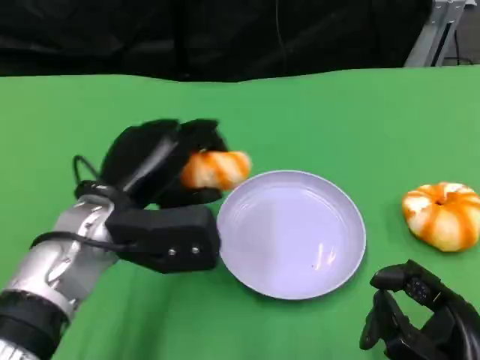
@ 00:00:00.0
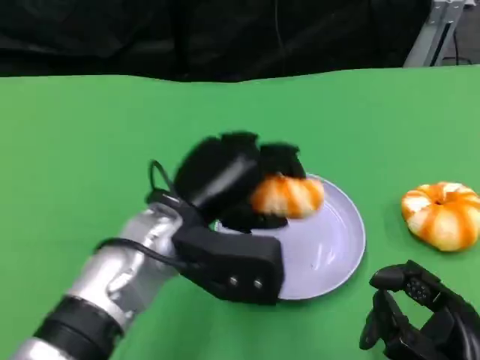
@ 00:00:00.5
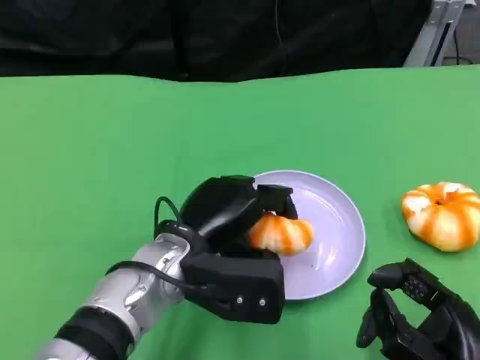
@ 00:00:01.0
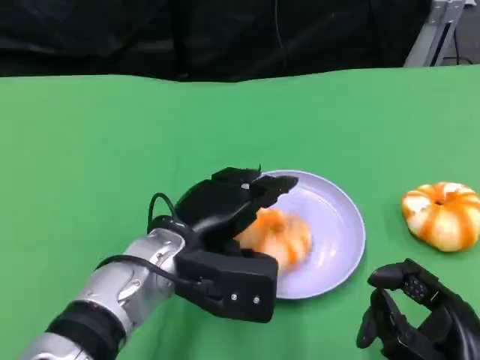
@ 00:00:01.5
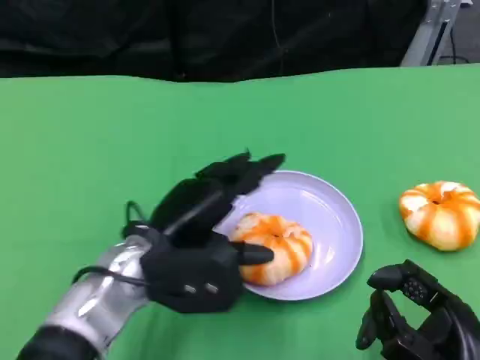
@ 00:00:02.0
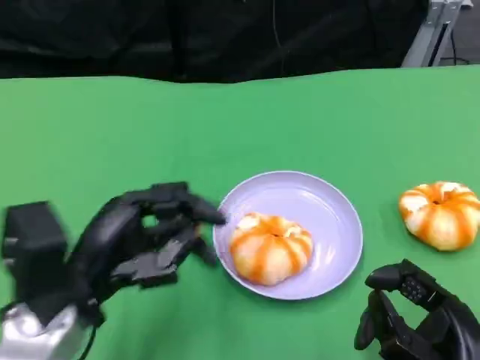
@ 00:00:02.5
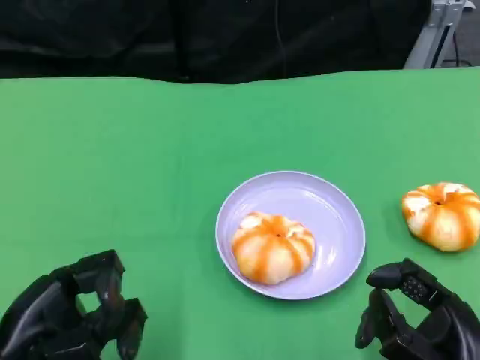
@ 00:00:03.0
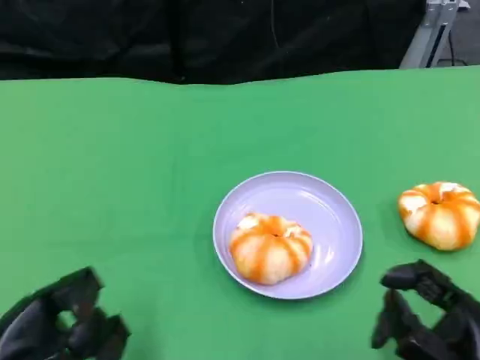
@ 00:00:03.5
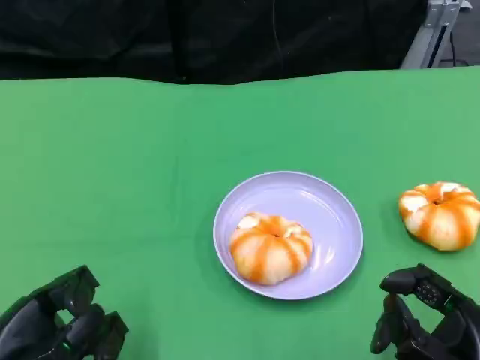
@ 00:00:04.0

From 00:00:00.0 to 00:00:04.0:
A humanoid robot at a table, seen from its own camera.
Task of the whole recording: Grasp the bread from the table and place it into the plate.
From 00:00:02.0 to 00:00:04.0: The left hand goes approximately 20 cm to the left and backward.

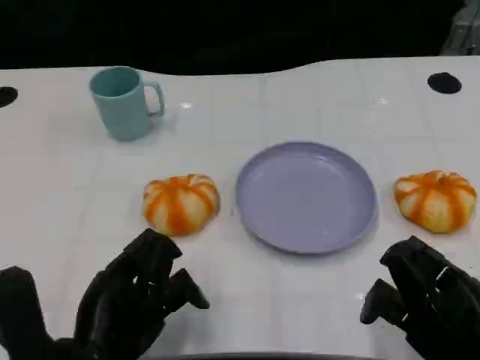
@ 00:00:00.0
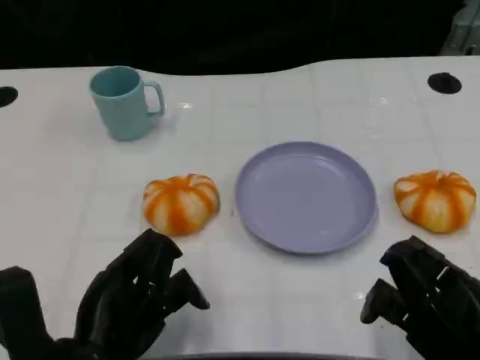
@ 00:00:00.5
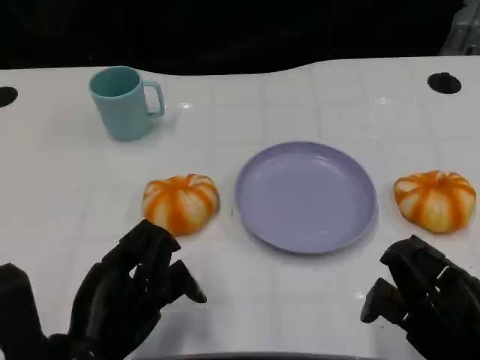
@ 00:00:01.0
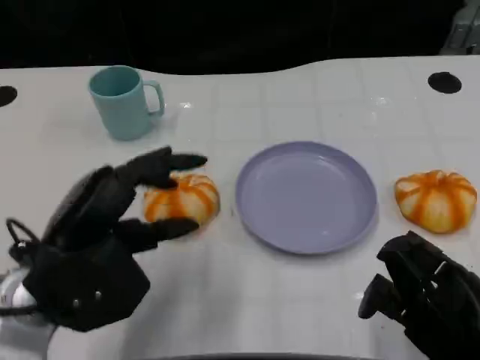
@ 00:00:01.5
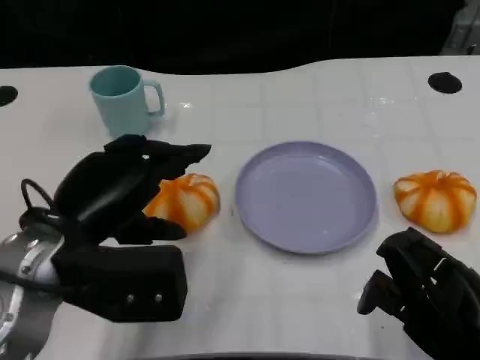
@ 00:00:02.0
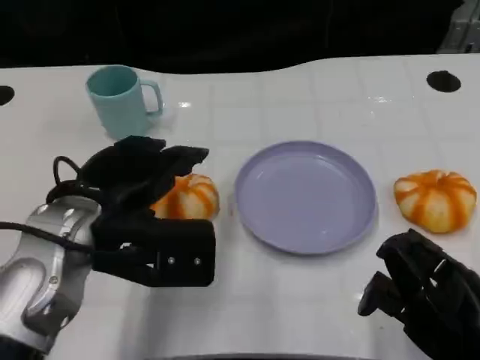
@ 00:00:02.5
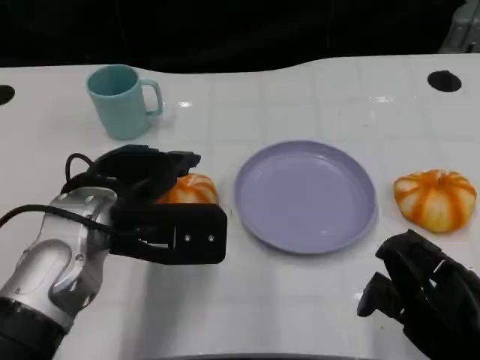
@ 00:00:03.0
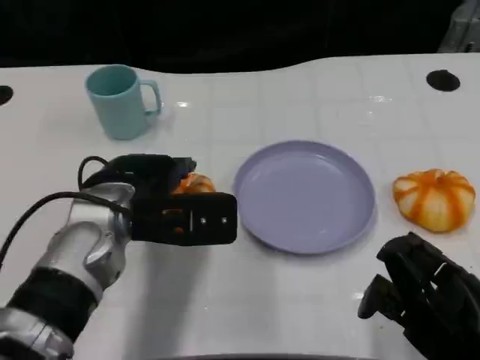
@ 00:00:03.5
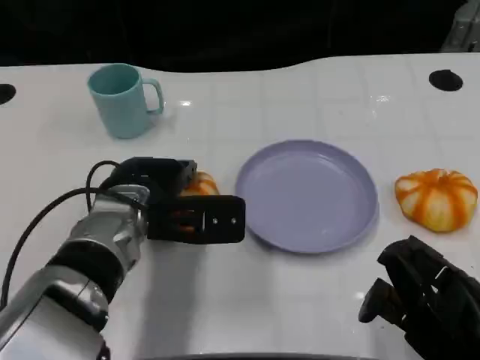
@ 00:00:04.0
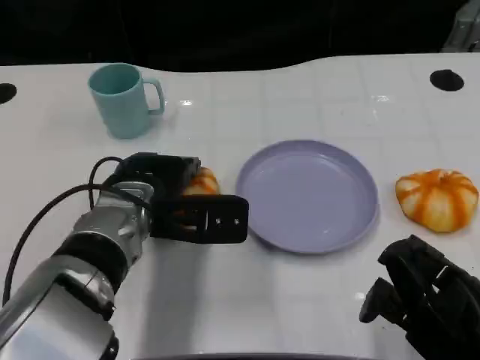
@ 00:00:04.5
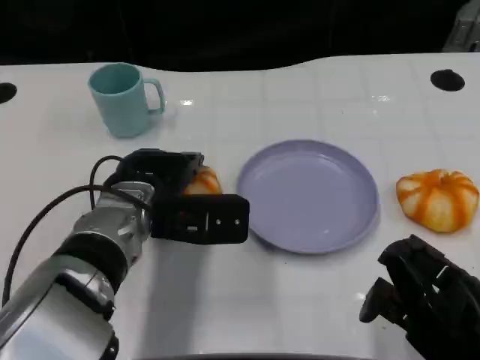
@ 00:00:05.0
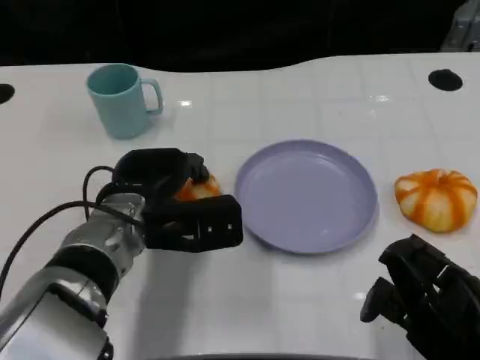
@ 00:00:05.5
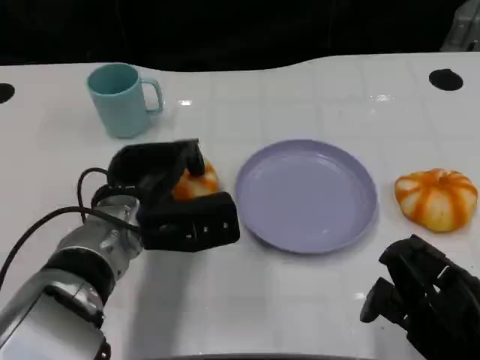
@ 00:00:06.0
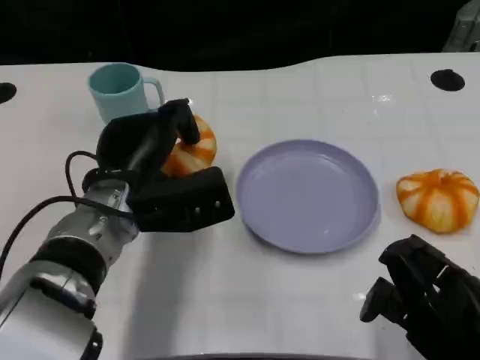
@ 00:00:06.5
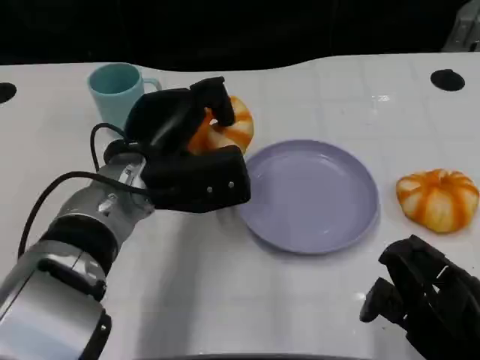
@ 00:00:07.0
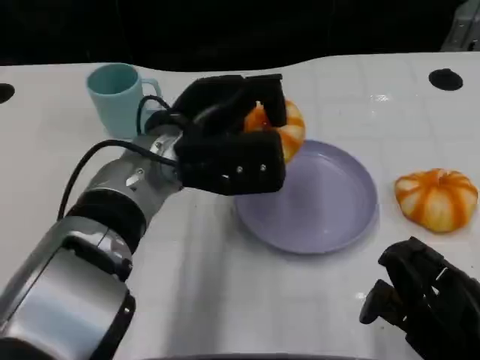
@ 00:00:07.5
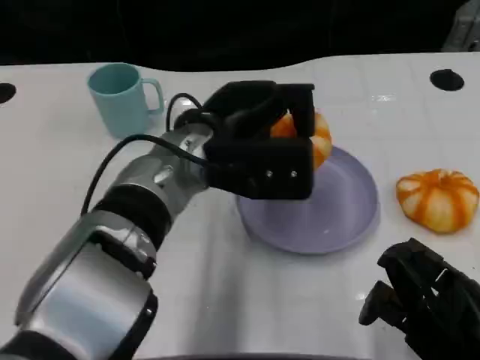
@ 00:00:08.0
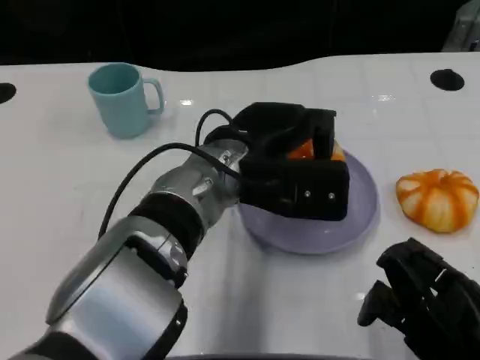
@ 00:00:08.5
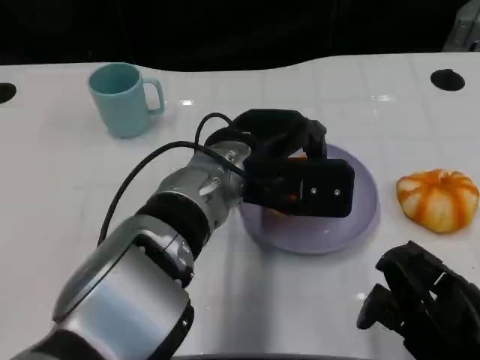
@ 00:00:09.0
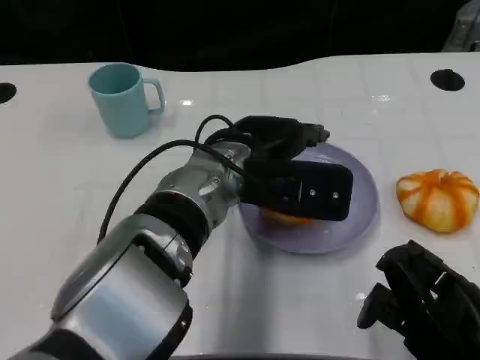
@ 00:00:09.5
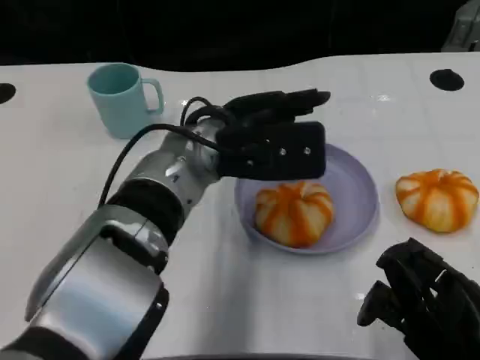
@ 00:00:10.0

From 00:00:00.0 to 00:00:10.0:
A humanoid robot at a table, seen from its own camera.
Task of the whole recording: Grasp the bread from the table and place it into the plate.
From 00:00:00.0 to 00:00:02.0: The left hand is displaced upward and forward by about 10 cm.
From 00:00:02.0 to 00:00:04.0: The left hand heads forward, to the right and downward, covering roughly 10 cm.
From 00:00:06.0 to 00:00:08.0: The left hand travels to the right and upward by roughly 10 cm.
From 00:00:08.0 to 00:00:10.0: There are only small adjustments of the hands.

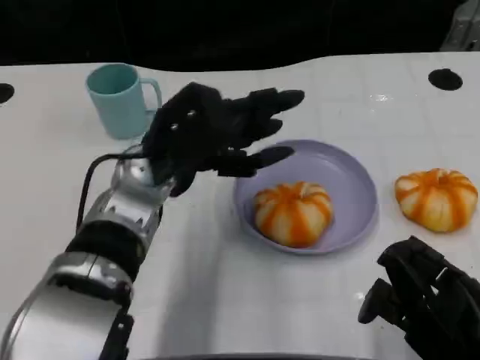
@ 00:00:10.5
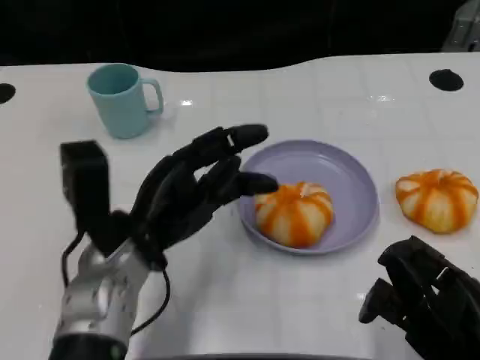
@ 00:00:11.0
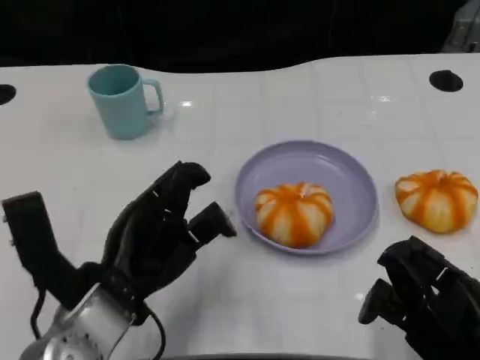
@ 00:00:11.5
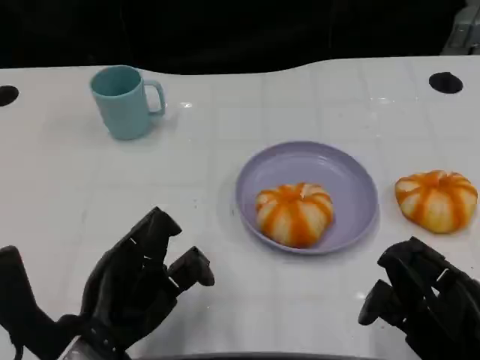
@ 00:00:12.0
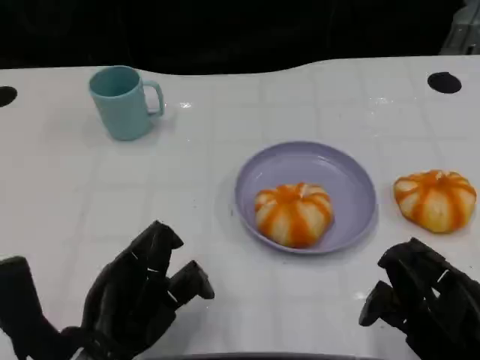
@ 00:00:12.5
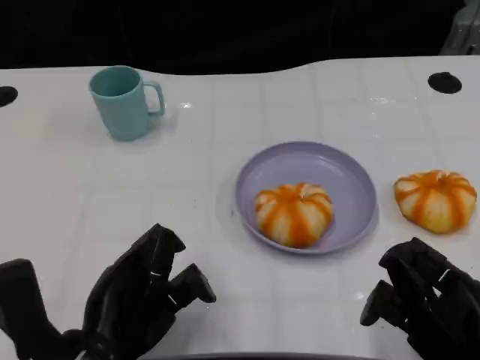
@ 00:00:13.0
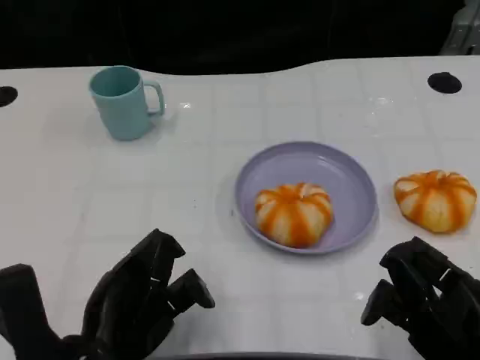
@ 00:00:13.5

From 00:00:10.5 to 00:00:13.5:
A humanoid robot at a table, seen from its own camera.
Task of the whole recording: Grasp the bread from the table and place it into the plate.
From 00:00:10.5 to 00:00:12.0: The left hand travels backward and to the left by about 15 cm.
From 00:00:12.0 to 00:00:13.5: The hands move only a little.

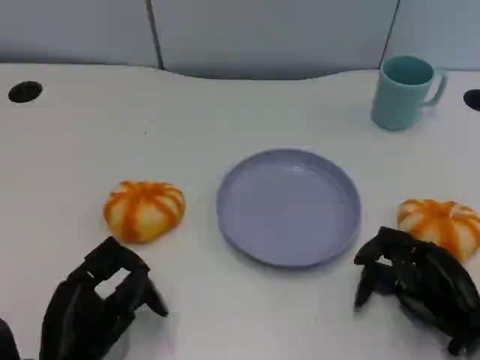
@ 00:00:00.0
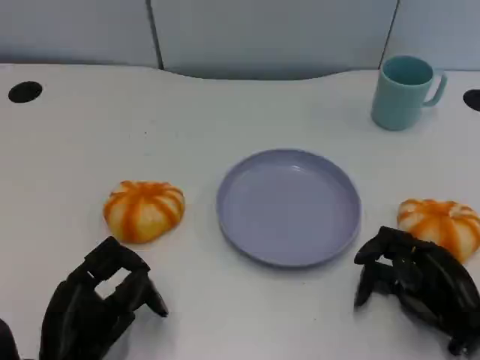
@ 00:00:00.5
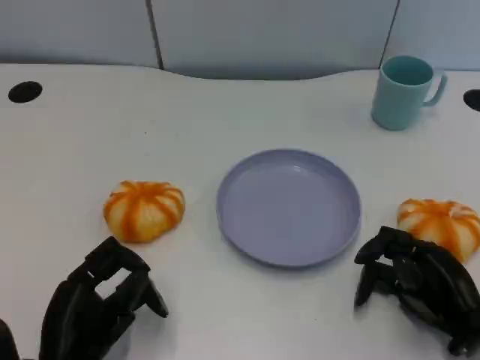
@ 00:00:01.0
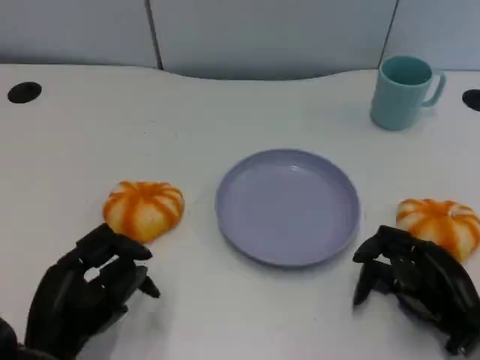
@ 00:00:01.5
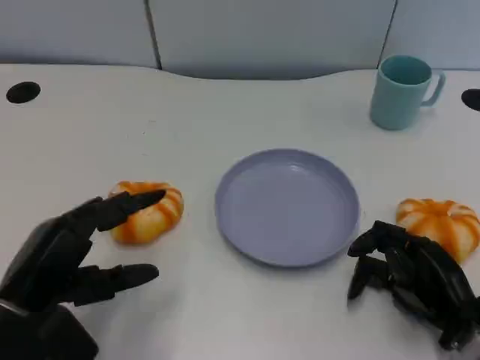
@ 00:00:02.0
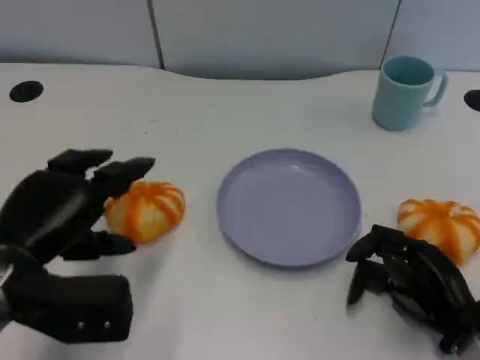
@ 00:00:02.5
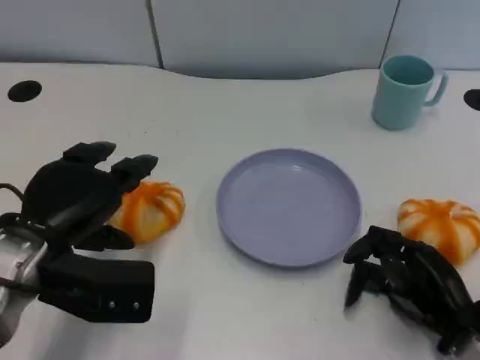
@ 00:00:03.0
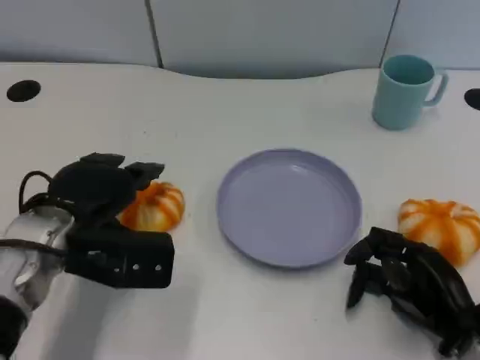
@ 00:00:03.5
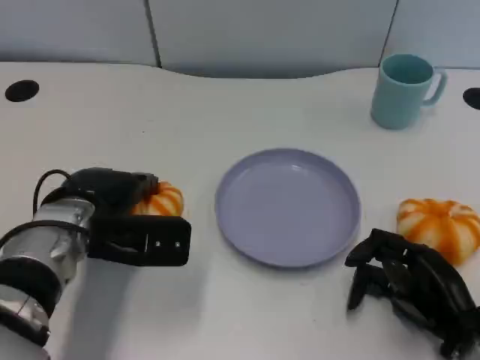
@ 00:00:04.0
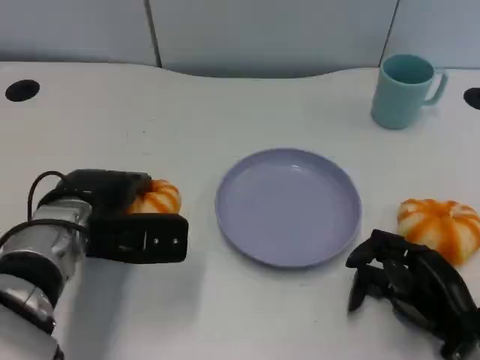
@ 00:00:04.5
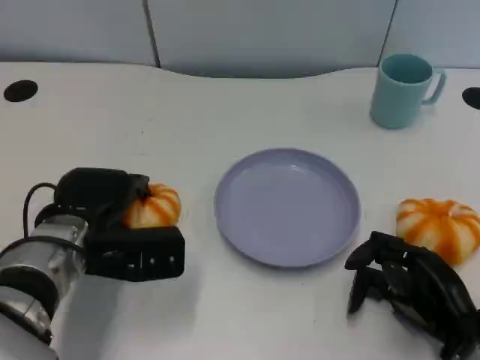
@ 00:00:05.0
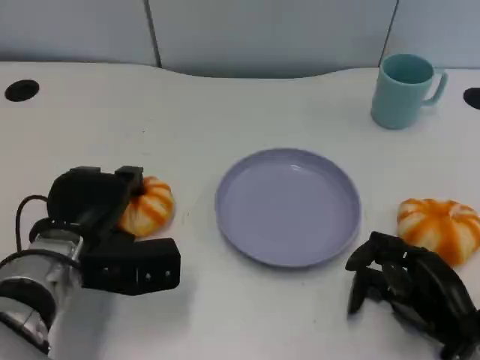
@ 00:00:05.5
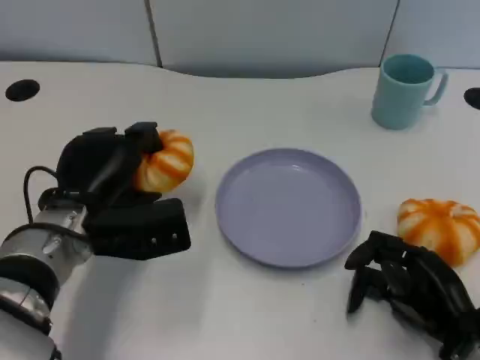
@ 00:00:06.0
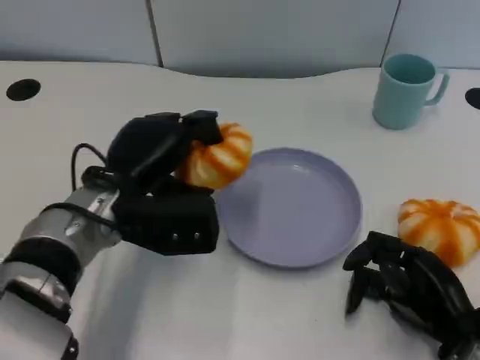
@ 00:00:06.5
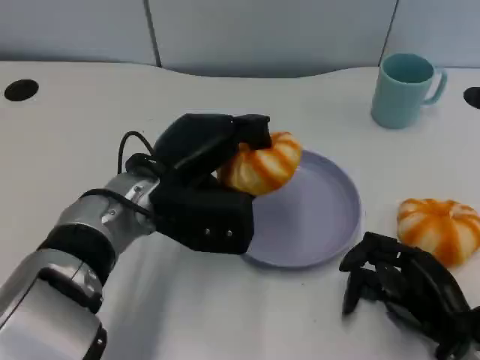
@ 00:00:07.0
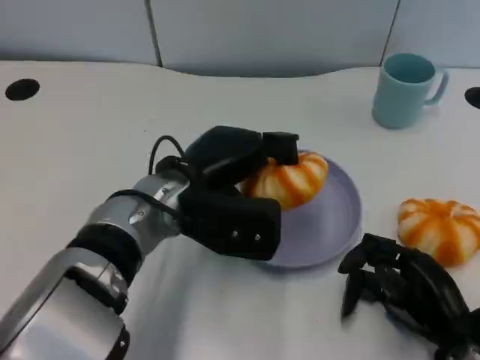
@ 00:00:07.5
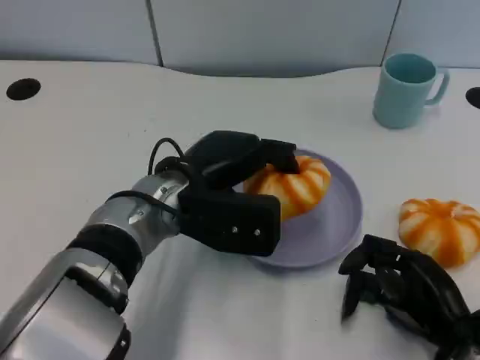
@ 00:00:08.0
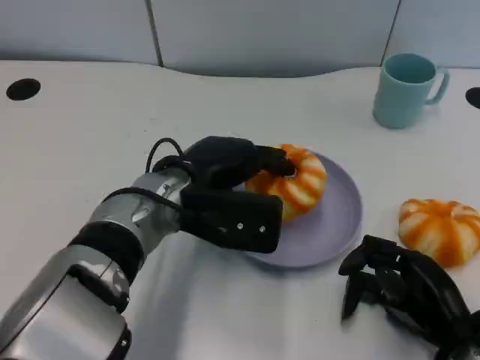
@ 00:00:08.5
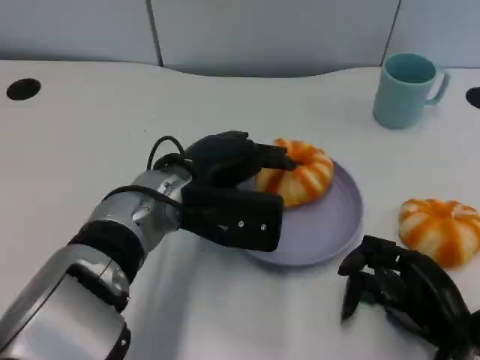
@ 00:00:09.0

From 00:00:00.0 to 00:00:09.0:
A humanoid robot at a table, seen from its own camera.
Task of the whole recording: Grasp the bread from the table and place it into the plate.
From 00:00:00.0 to 00:00:02.0: The left hand travels upward by approximately 10 cm.
From 00:00:02.0 to 00:00:04.5: The left hand goes about 15 cm forward and to the right.
From 00:00:04.5 to 00:00:07.0: The left hand heads to the right, covering about 10 cm.
